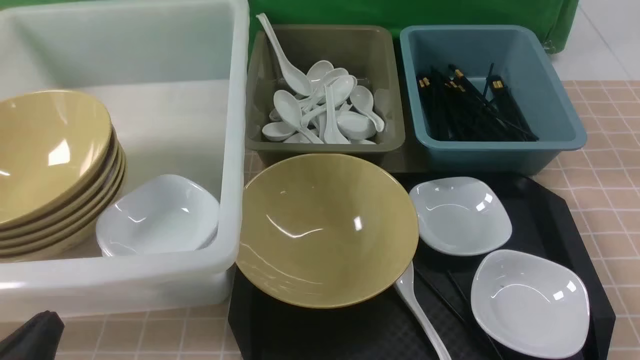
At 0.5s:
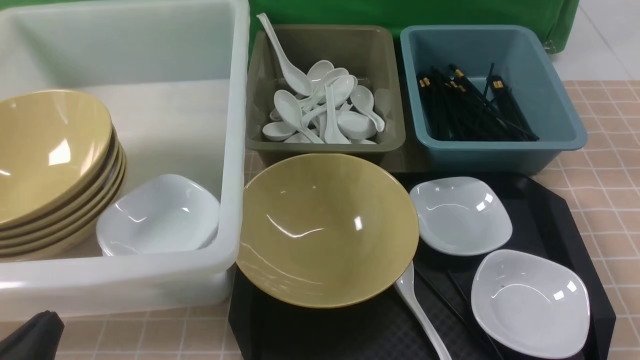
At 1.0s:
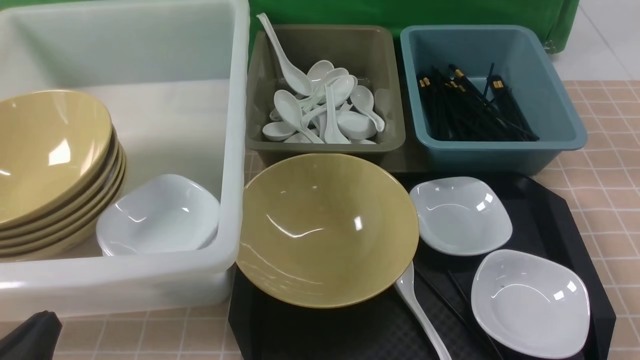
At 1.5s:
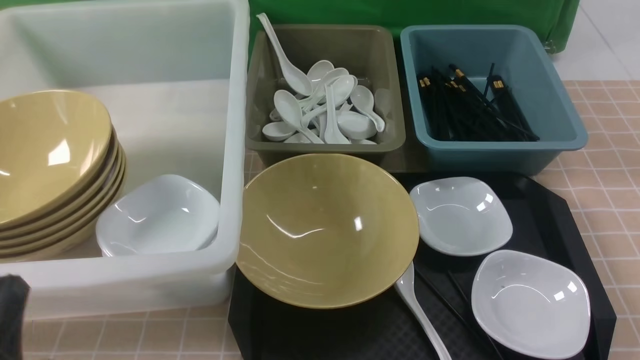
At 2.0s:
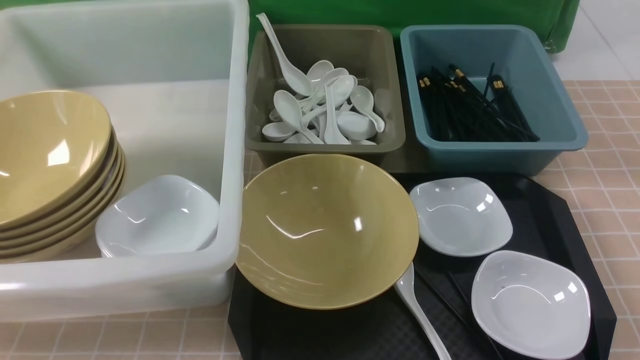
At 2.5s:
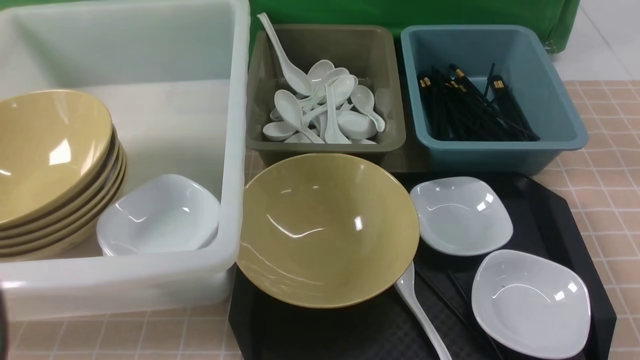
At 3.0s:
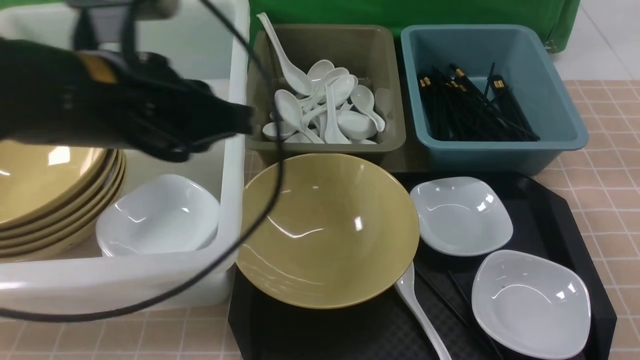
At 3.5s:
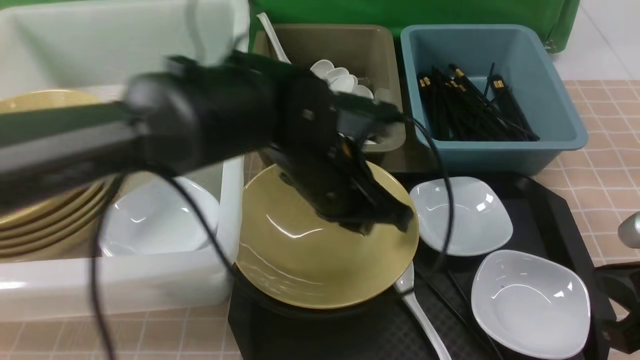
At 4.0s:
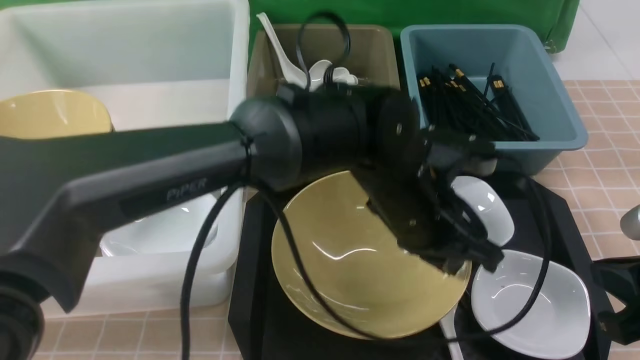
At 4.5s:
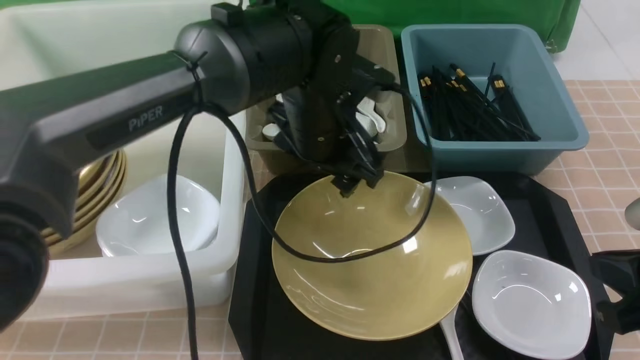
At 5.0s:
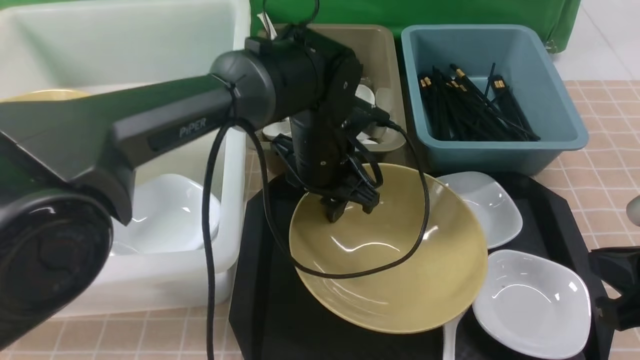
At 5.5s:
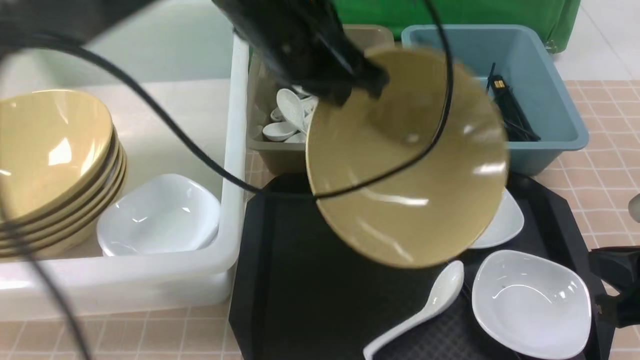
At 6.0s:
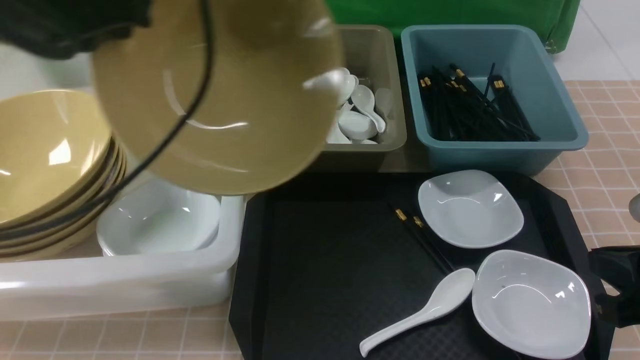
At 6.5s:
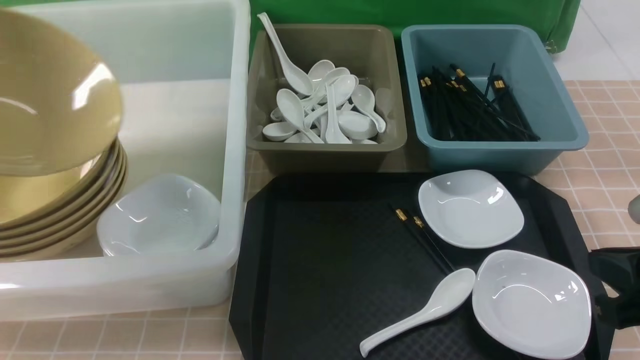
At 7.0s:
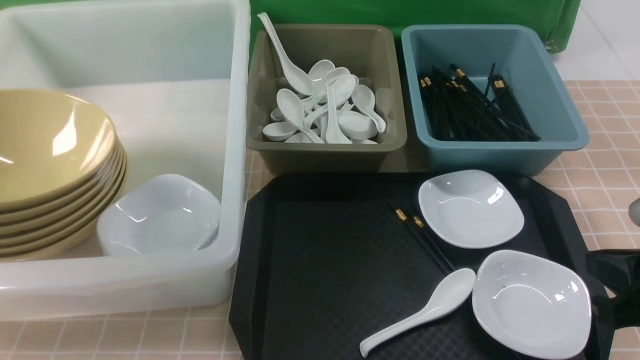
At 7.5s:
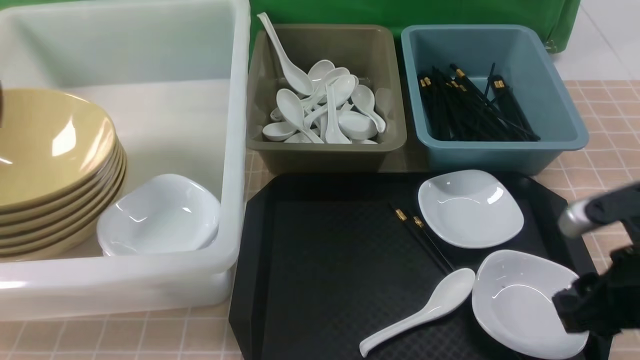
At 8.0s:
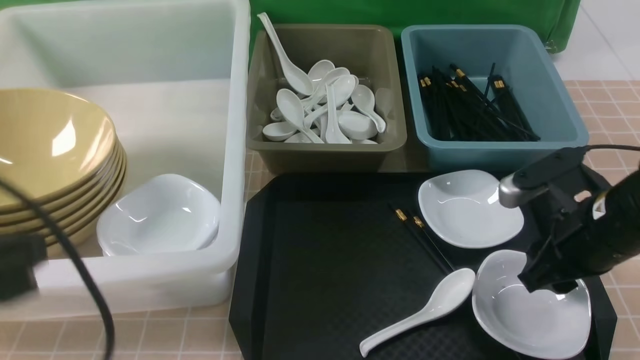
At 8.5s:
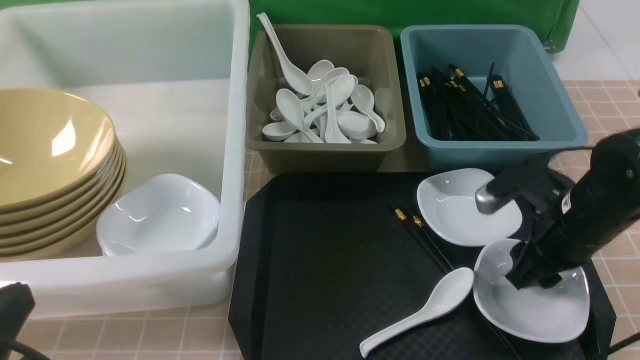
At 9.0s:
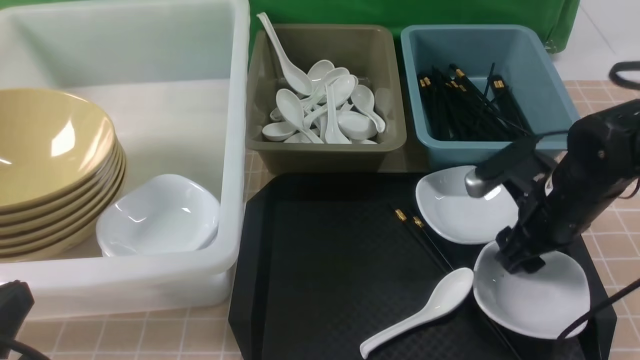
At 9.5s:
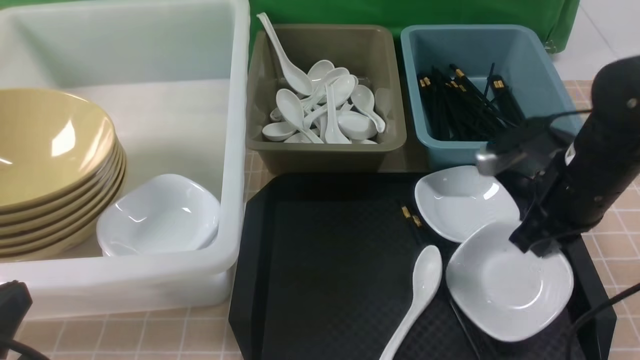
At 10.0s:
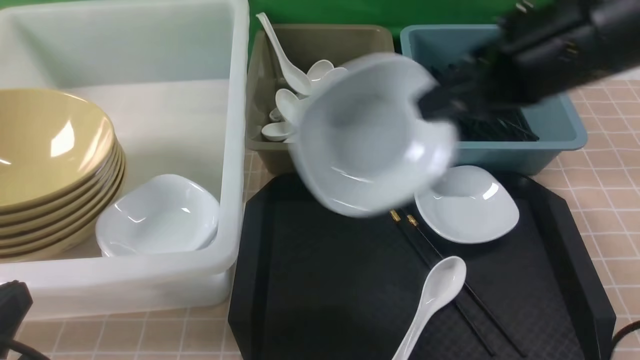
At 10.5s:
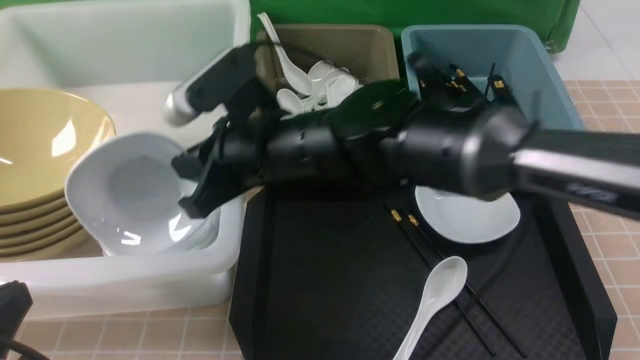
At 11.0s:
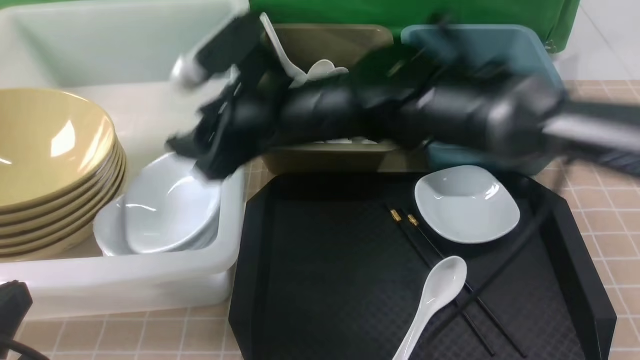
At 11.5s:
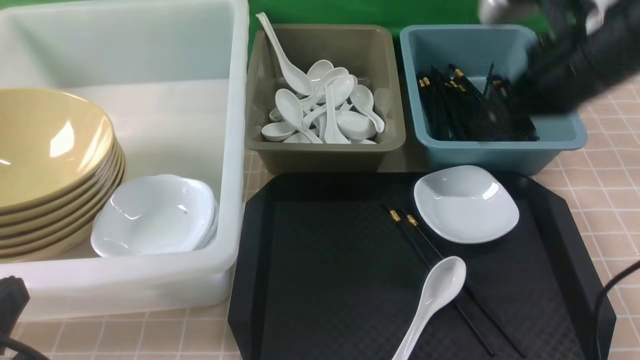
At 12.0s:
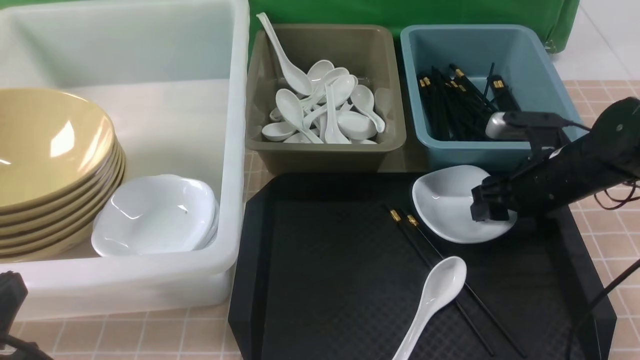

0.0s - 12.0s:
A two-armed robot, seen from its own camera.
Task of the whole recording: on brown table put chopsticks spoon bowls plates into blue grey white boxes.
Step, 0.0s - 5.0s: use the left arm to grab the yellow noodle bowl on the left.
Step, 5.5s - 6.5s: use the left arm to put the noodle bowl into the large storage box on the left.
Step, 7.0s - 9.5s: use the right arm to grab the plate.
Step, 10.0s - 11.0s: use the right arm to put the plate into the large storage box on the left.
0.0s - 2.0s: Both grippers travel together upward, some 10 cm.
2.0s - 4.0s: The right gripper goes some 10 cm forward, while the left gripper shifts about 40 cm to the right and forward.
4.0s - 6.0s: The left gripper shifts roughly 35 cm to the left and upward, and opens, then closes once more.
6.0s - 8.0s: The right gripper travels forward and downward by about 10 cm, and opens up. The left gripper heads backward and downward, covering some 20 cm, reaches approximately 15 cm to the left, then returns, and opens, then closes again.
8.0s - 10.0s: The left gripper moves downward, some 5 cm. Meanwhile the right gripper is displaced upward and to the left by approximately 20 cm, and closes up.
10.0s - 12.0s: The right gripper is displaced downward and to the right by some 25 cm, and opens.

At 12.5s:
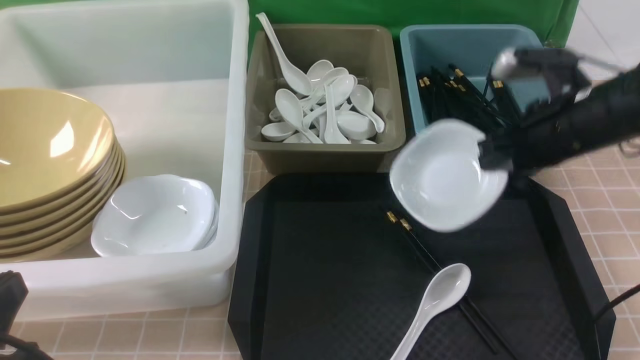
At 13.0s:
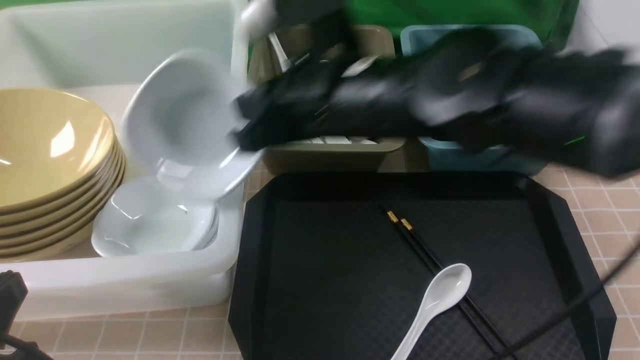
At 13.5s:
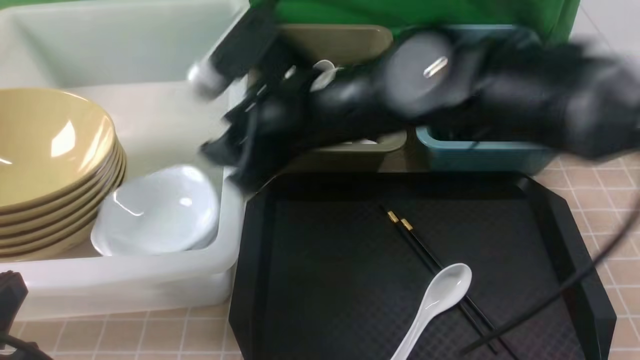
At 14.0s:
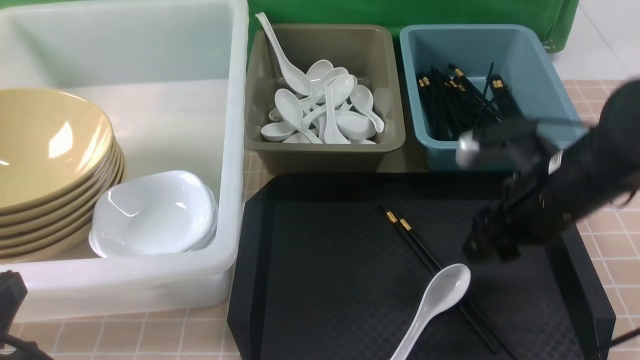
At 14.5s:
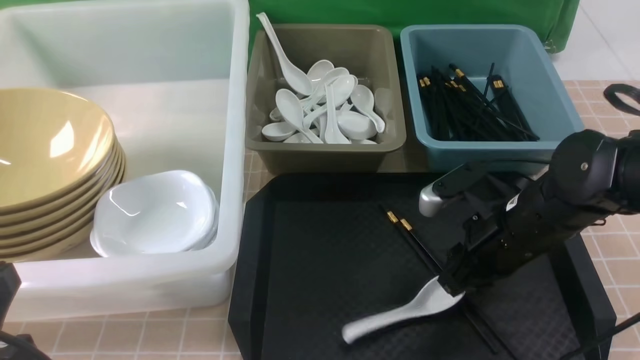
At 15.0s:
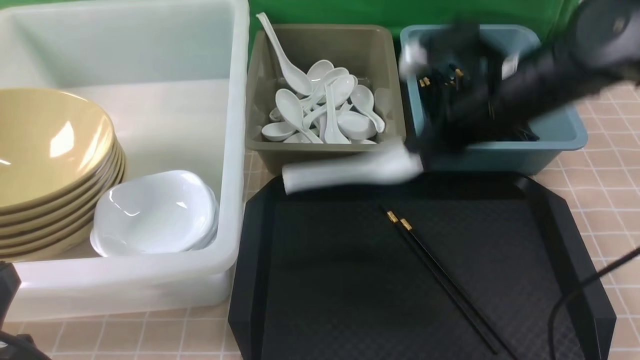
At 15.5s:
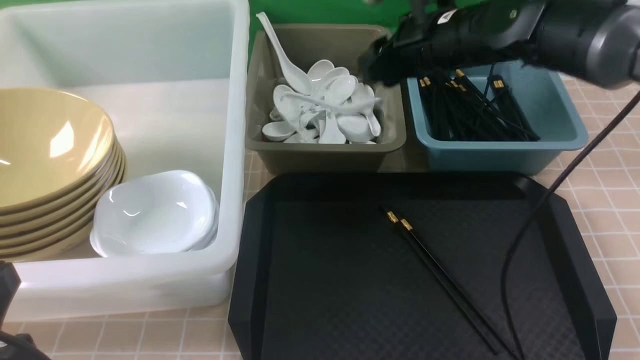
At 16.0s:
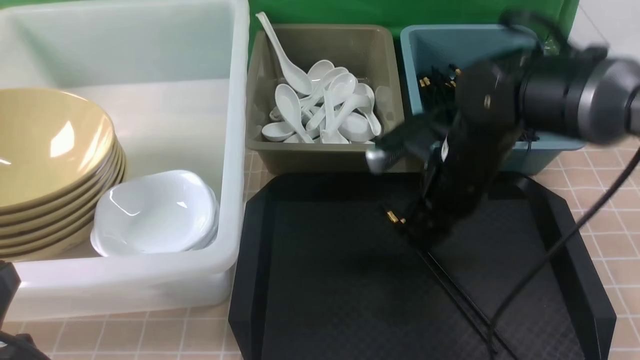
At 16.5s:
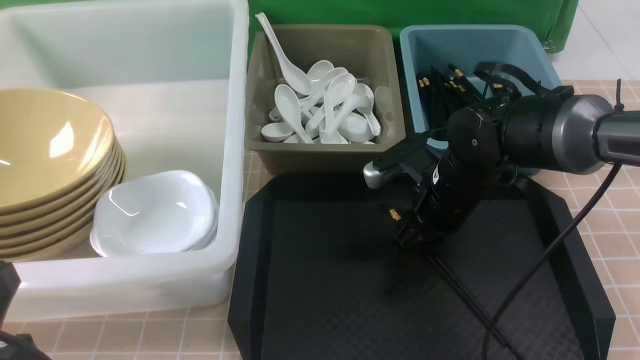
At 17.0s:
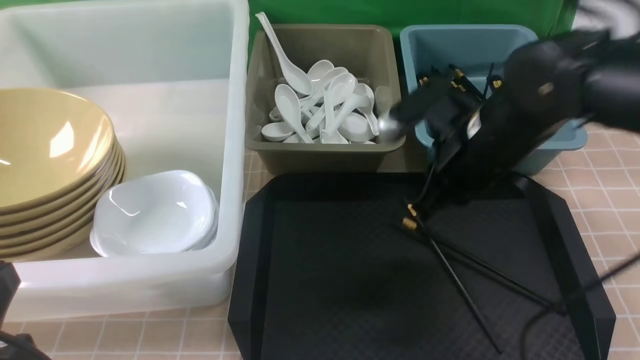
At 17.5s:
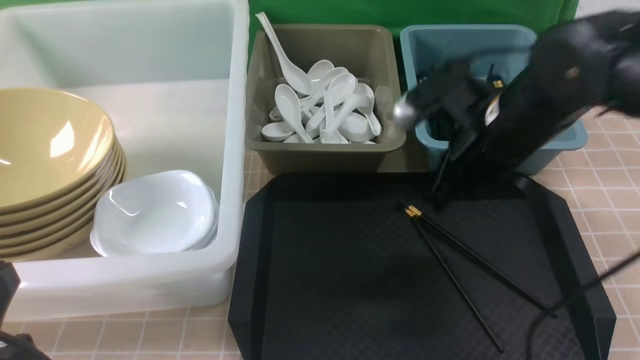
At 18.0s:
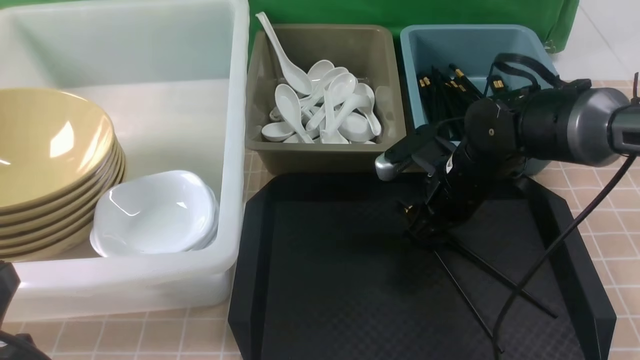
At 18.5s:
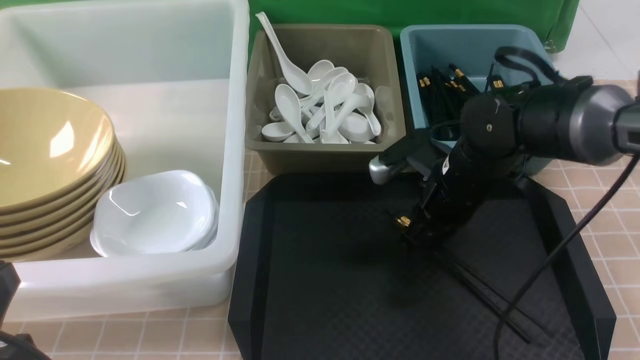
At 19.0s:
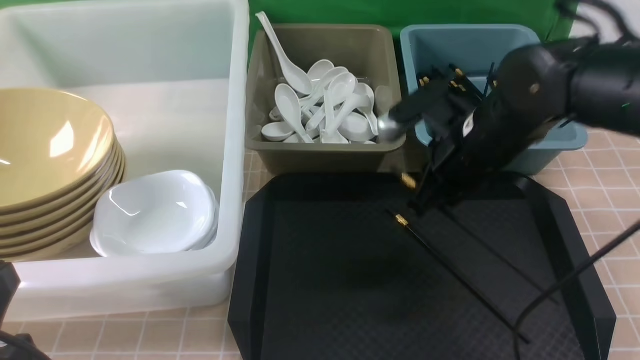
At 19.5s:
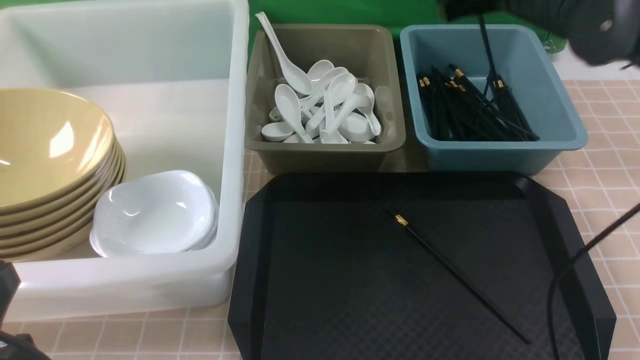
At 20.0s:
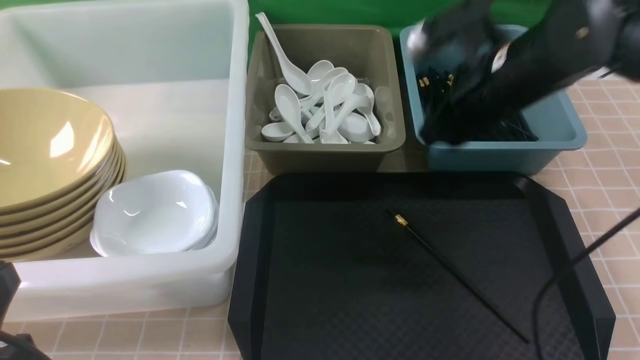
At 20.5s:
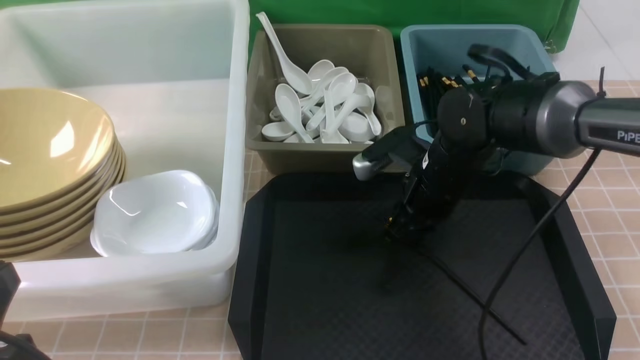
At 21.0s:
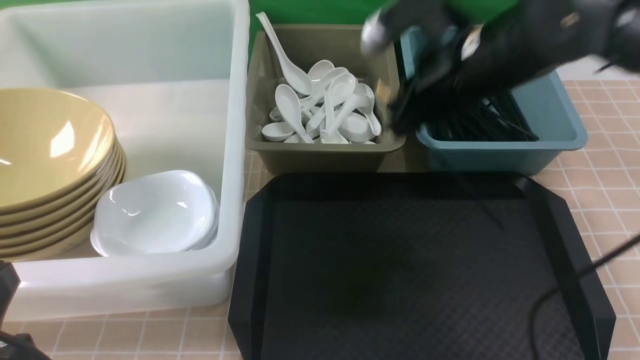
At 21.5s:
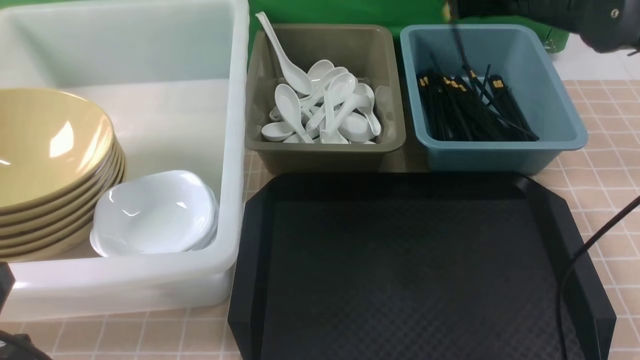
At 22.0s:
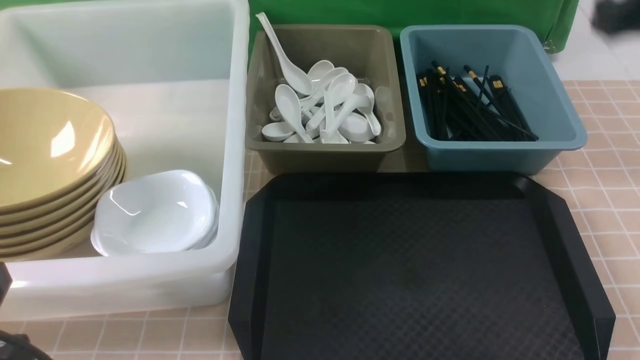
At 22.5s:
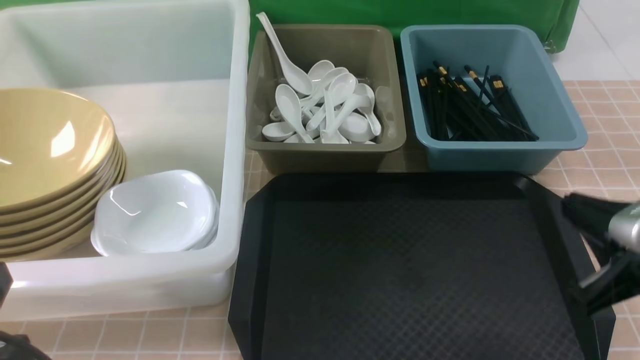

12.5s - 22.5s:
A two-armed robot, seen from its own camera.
Task of the whole recording: on brown table put chopsticks spoon bowls plates into blue grey white boxes.
Step, 12.5s - 13.5s: use the right arm to put the plate into the large storage box on the left.
Step, 14.0s - 14.5s: use the right arm to grab the soup spoon in the middle.
Step, 15.0s - 15.5s: use the right arm to put the soup spoon into the small storage box in the middle.
Step, 16.0s - 18.5s: use the right arm to grab a chopstick.
Step, 19.0s - 20.0s: use the right arm to put a chopstick into the small storage box on the right.
Step, 21.0s - 21.5s: use the right arm to put a chopstick into the small storage box on the right.
12.5s - 14.5s: The right gripper shifts approximately 10 cm downward and backward, reaches roughly 20 cm to the left, then returns, and opens and closes again.
14.5s - 16.5s: The right gripper travels forward by some 5 cm, and opens, then closes again.
16.5s - 18.5s: The right gripper travels upward and back again, roughly 10 cm each way, and closes up.
18.5s - 20.5s: The right gripper goes upward and returns, roughly 15 cm each way, and opens, then closes once more.
20.5s - 22.5s: The right gripper goes approximately 25 cm backward and to the right.
